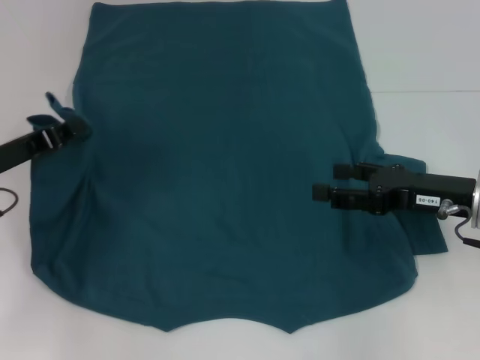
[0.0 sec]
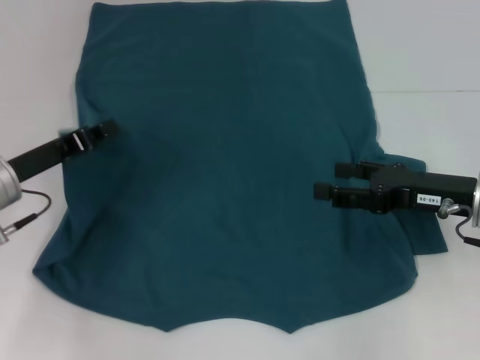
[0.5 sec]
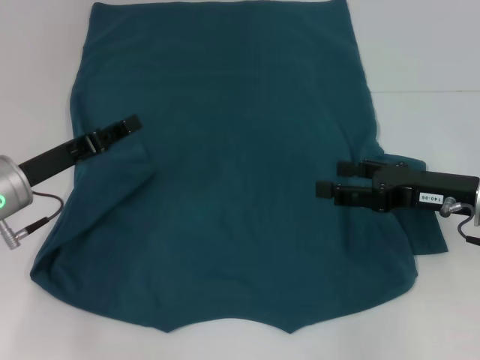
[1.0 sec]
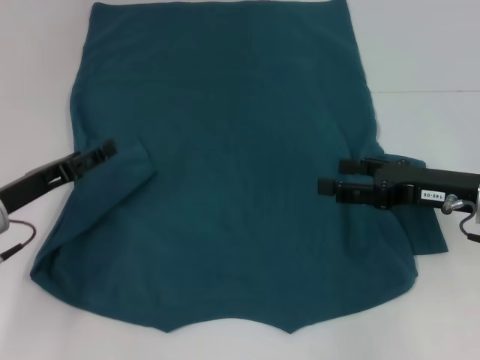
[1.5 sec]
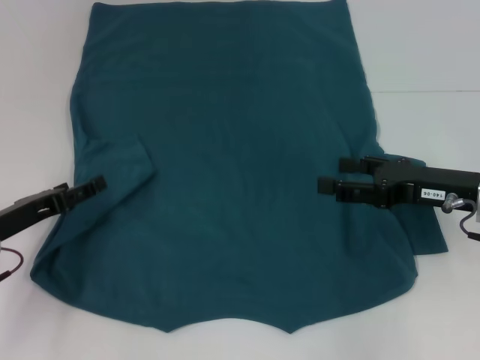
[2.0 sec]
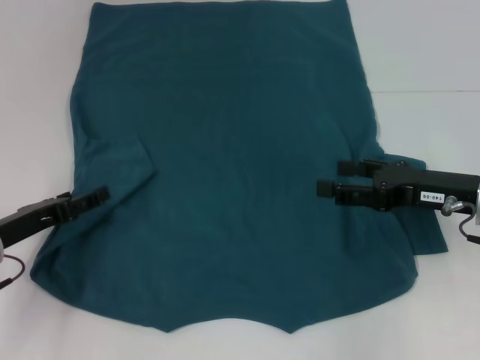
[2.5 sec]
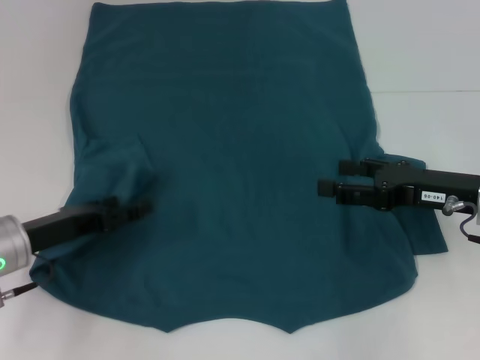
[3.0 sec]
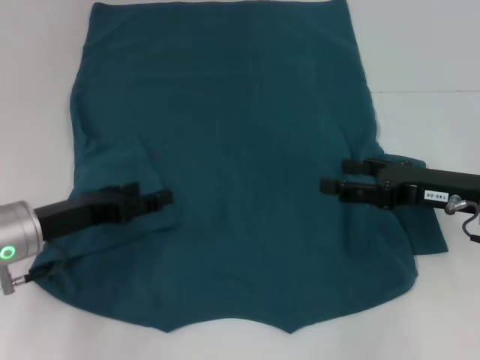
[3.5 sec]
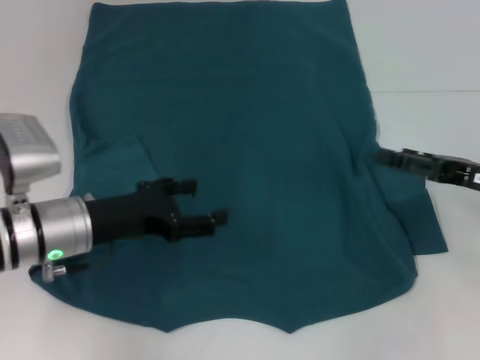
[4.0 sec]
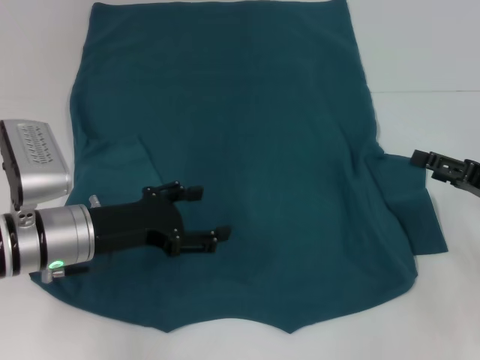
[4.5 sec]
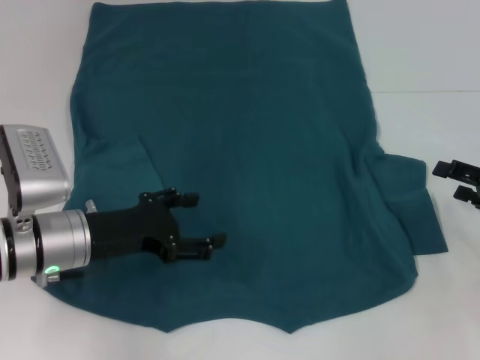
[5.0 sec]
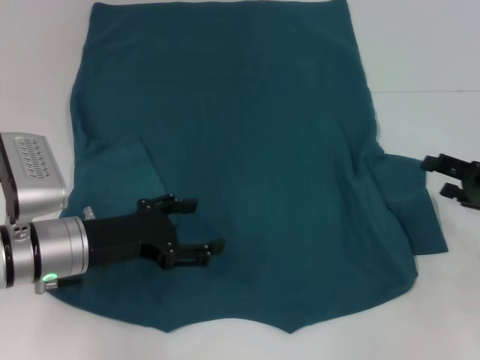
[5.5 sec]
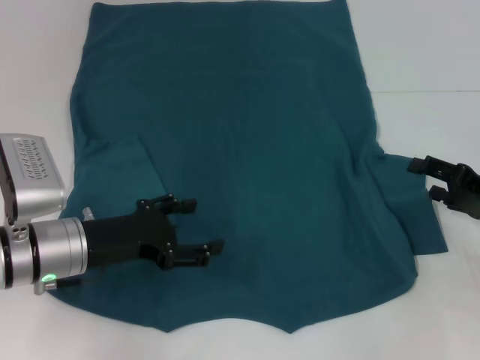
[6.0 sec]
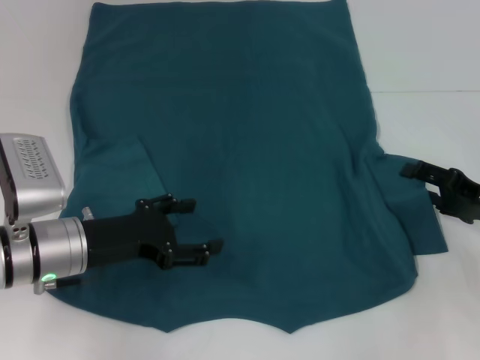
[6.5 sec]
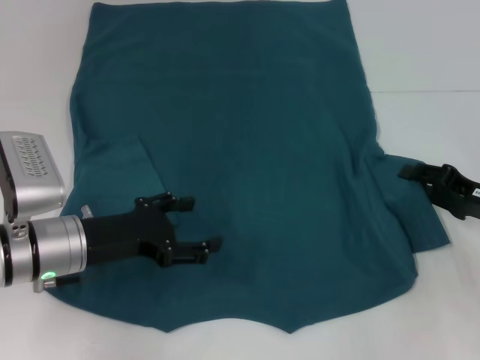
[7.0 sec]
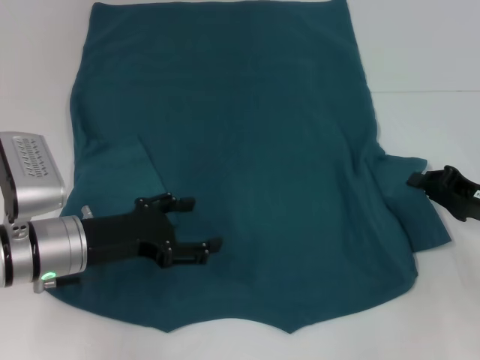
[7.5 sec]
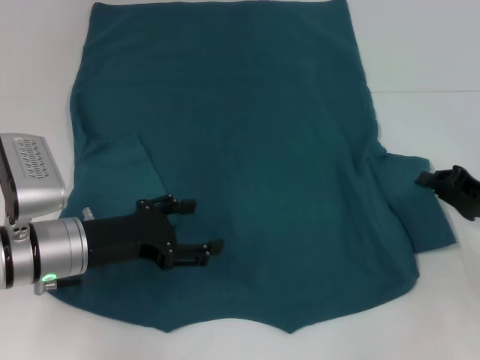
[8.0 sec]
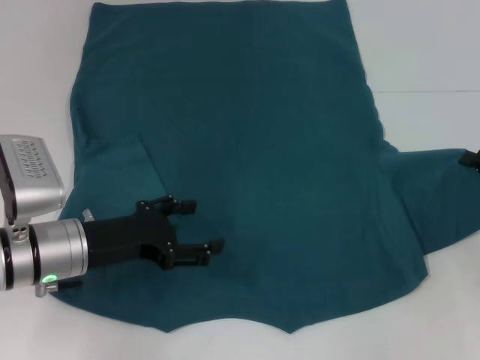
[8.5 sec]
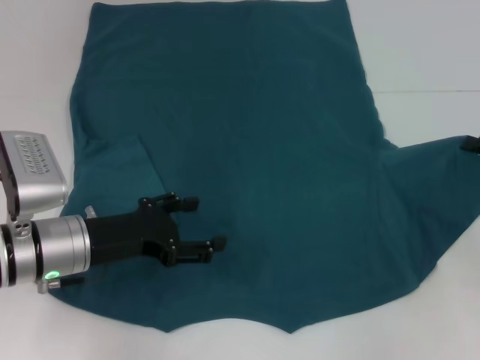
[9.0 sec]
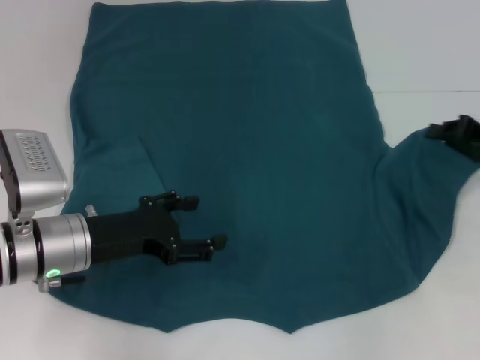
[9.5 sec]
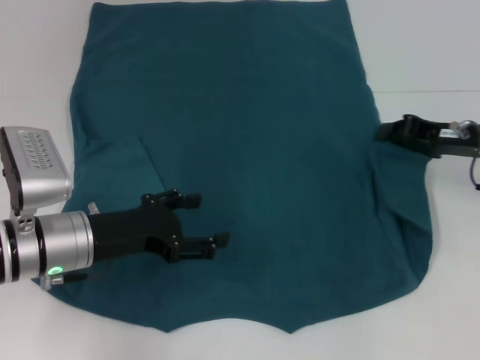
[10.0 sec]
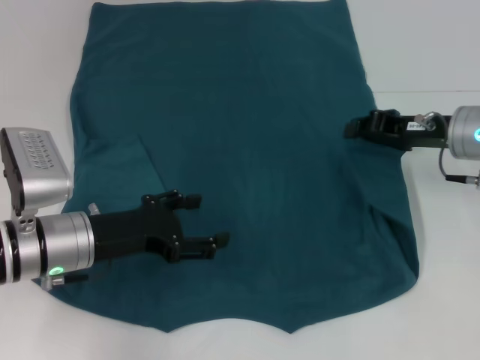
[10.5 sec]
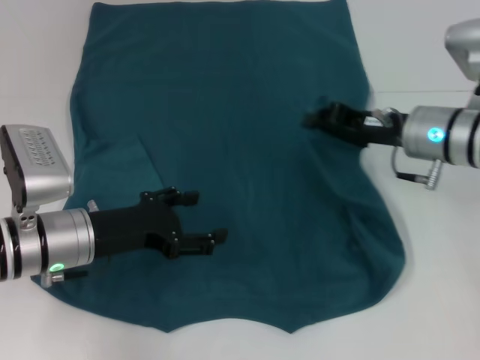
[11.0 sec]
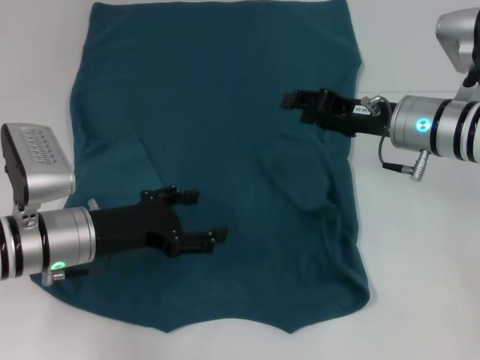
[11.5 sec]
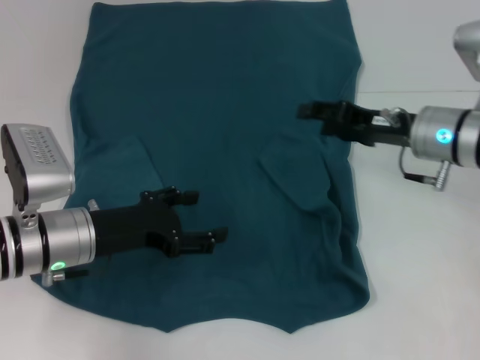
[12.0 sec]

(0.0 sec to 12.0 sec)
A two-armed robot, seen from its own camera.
Step, 0.0 sec - 3.0 sec: Fold the bottom left sleeve with your left hand.
0.0 sec - 2.0 sec: The left gripper travels downward by approximately 5 cm, and opens.
2.0 sec - 4.0 sec: The left gripper is displaced to the right by about 10 cm. Meanwhile the right gripper changes place by approximately 5 cm.
6.0 sec - 8.0 sec: The right gripper closes its fingers.
8.0 sec - 10.0 sec: The right gripper moves forward and upward, some 10 cm.
10.0 sec - 12.0 sec: The right gripper is displaced to the left by some 5 cm, and opens.

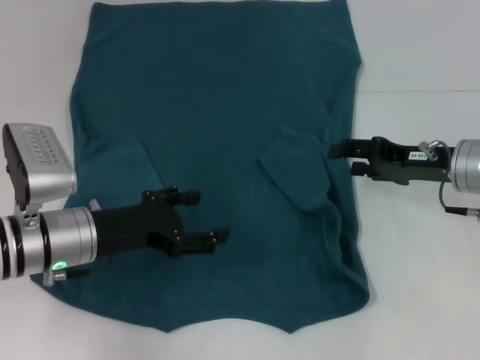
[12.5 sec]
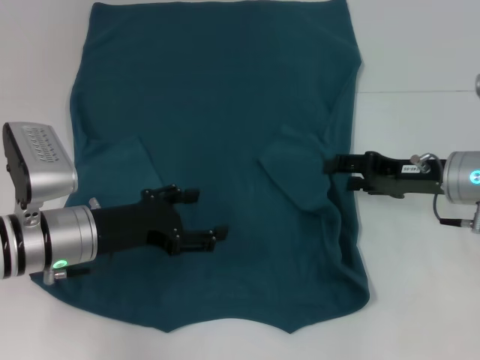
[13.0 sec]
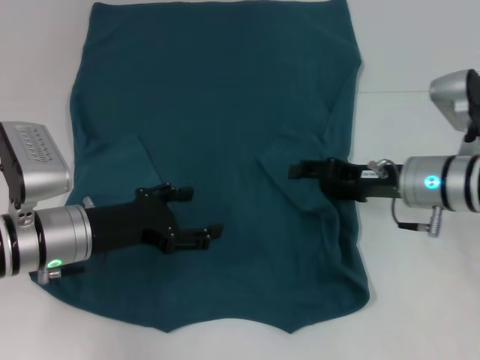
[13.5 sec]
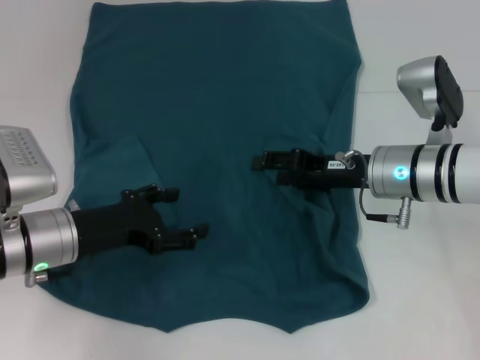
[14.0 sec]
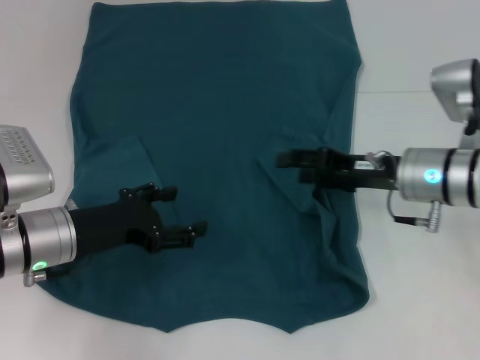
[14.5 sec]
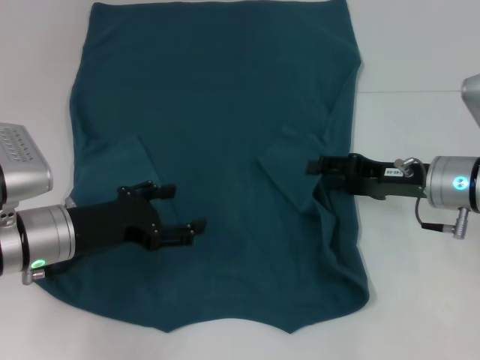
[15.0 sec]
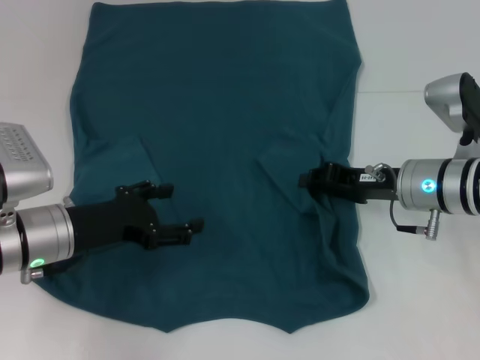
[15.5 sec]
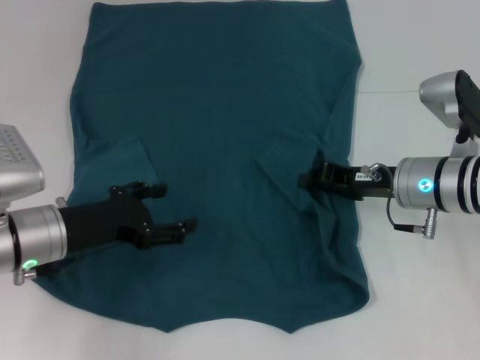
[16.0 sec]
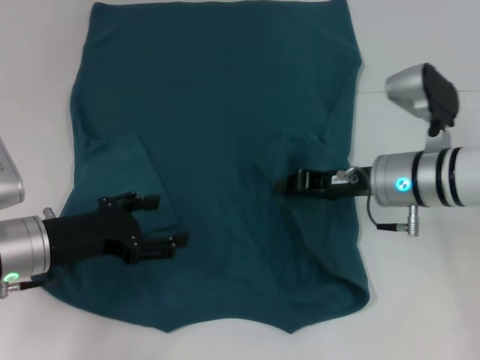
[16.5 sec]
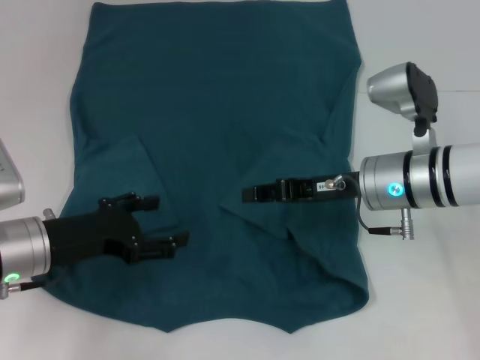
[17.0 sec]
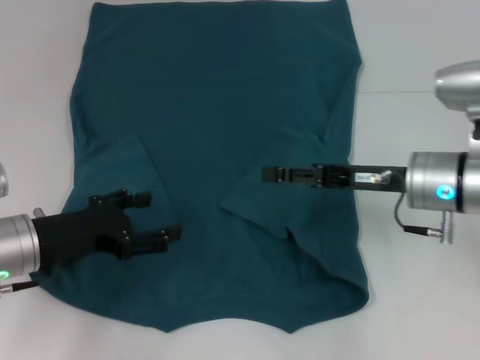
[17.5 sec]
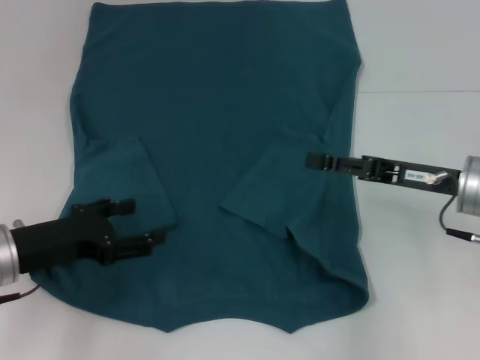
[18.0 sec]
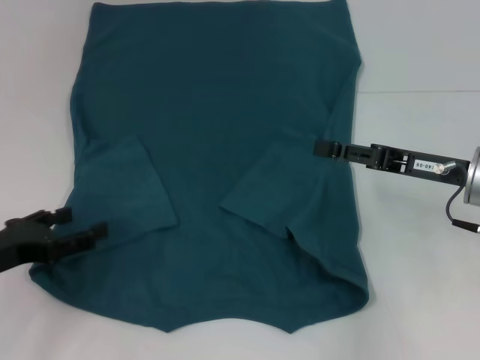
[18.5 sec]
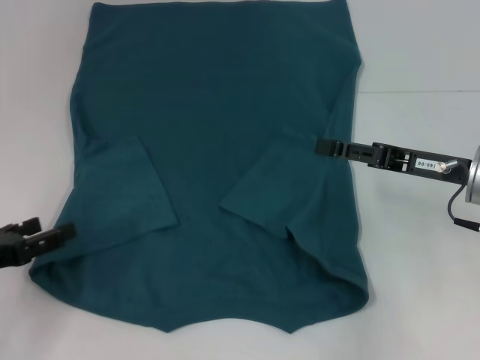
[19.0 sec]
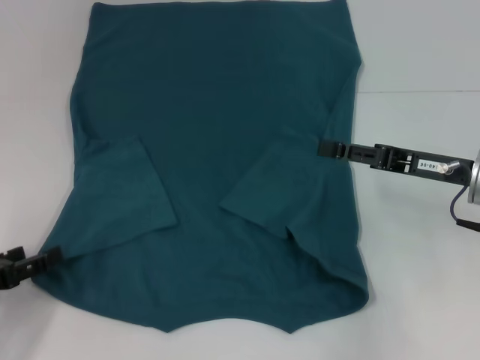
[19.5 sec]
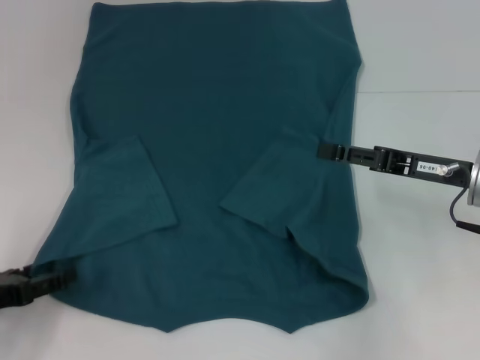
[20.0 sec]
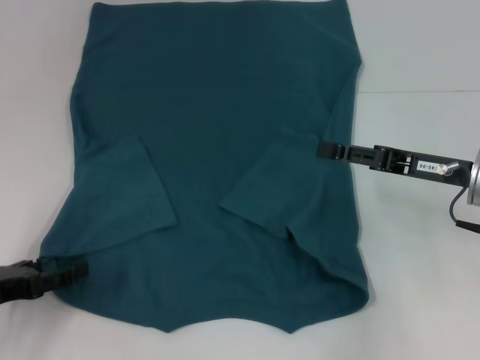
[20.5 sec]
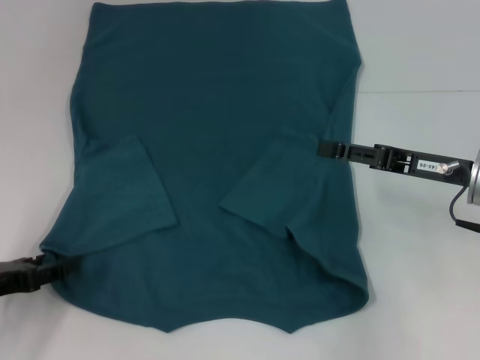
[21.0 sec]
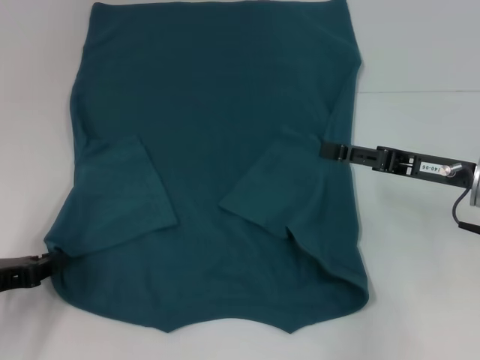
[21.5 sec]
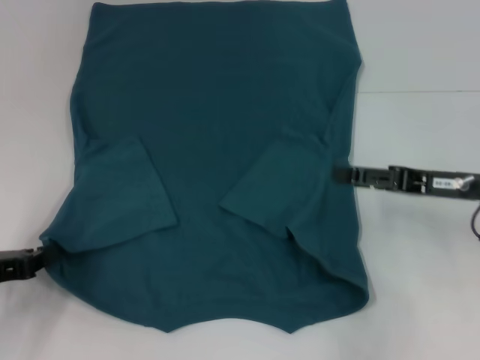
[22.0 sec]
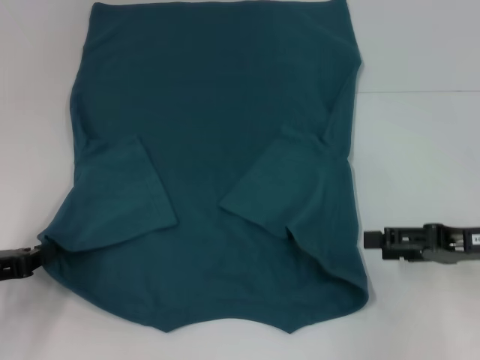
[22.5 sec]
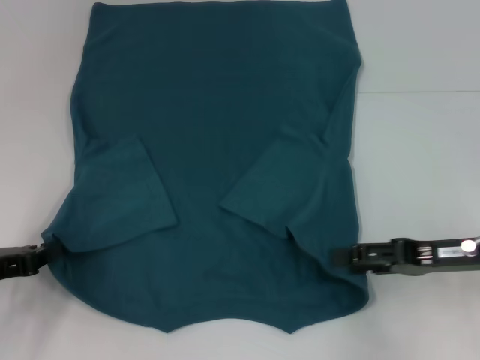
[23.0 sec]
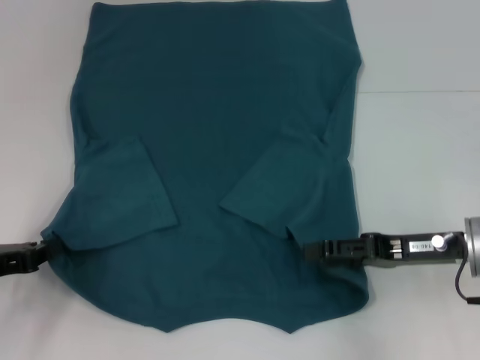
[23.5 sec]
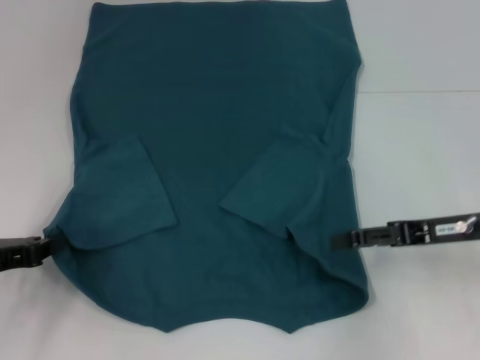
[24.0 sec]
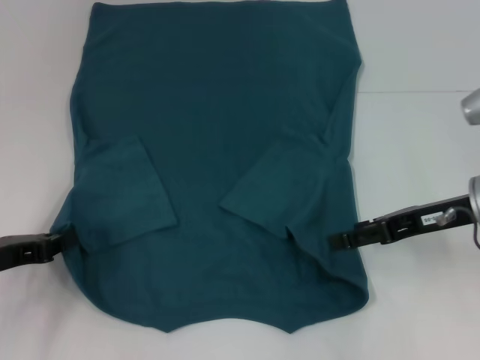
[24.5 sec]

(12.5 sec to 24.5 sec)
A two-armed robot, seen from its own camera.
Step, 12.5 sec - 17.0 sec: Fold the bottom right sleeve to the right.
Step, 17.5 sec - 22.0 sec: Grab the bottom left corner with your left hand.
12.5 sec - 14.5 sec: The right gripper travels to the left by some 5 cm.
14.5 sec - 16.5 sec: The right gripper closes.
16.5 sec - 18.5 sec: The left gripper travels to the left by approximately 5 cm, while the right gripper heads to the right, covering roughly 10 cm, and opens its fingers.
18.5 sec - 20.5 sec: The grippers make only small movements.
20.5 sec - 22.5 sec: The left gripper closes. Meanwhile the right gripper ends up about 5 cm from where it was.
22.5 sec - 24.5 sec: The right gripper travels to the left by some 5 cm.

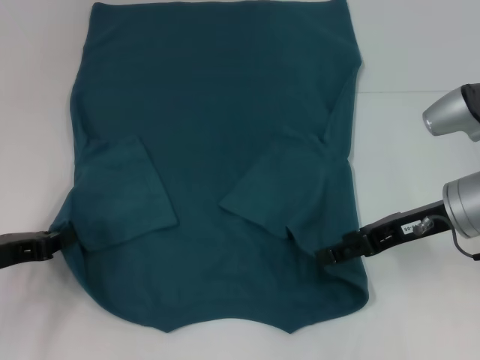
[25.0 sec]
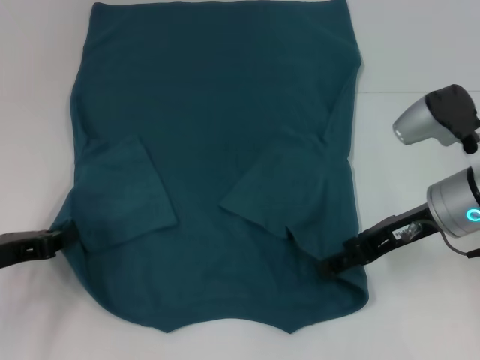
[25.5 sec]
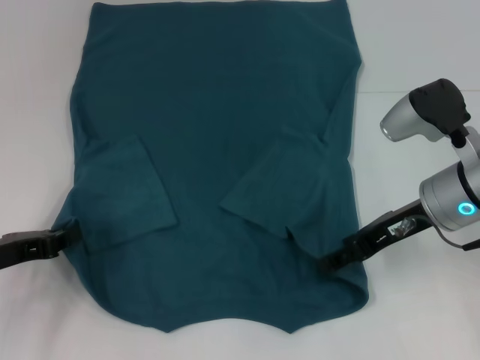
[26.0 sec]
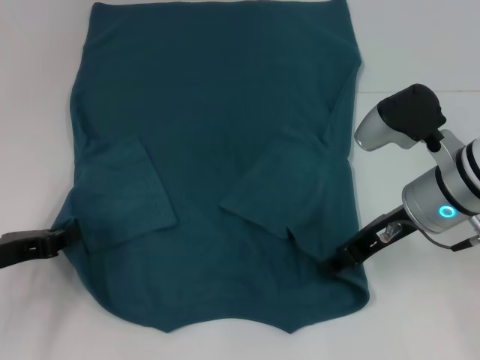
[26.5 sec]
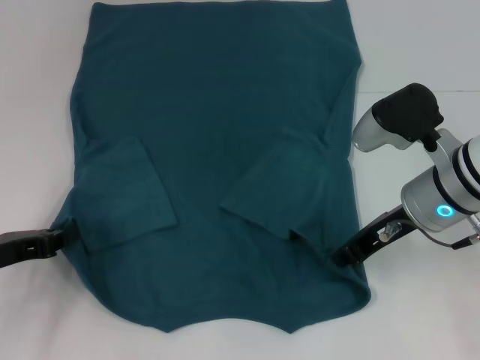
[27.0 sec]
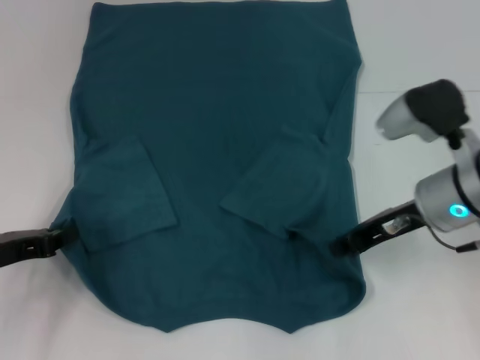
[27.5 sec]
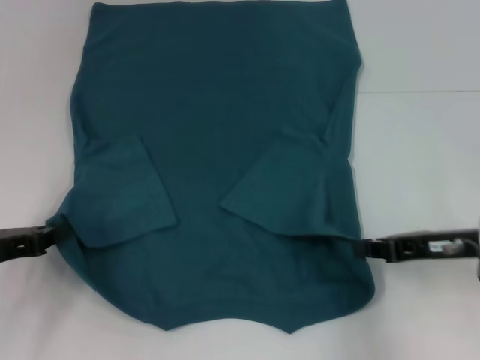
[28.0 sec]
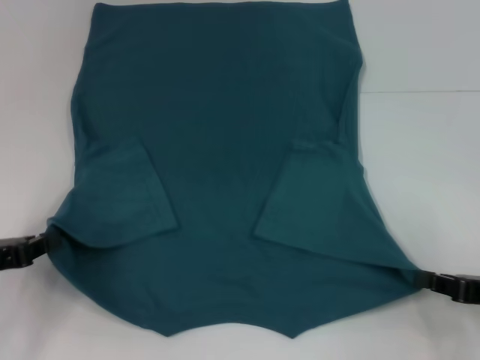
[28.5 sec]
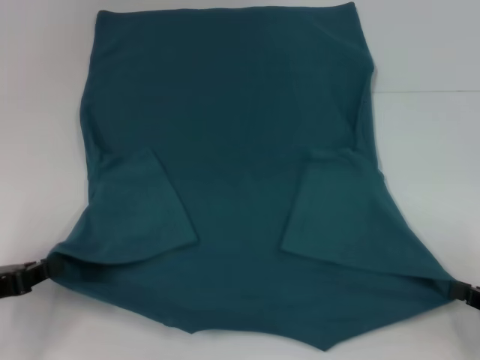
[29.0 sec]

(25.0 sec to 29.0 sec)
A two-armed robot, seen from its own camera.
25.0 sec - 27.0 sec: The right gripper closes its fingers.
27.0 sec - 29.0 sec: The right gripper goes approximately 25 cm to the right, backward and downward.
